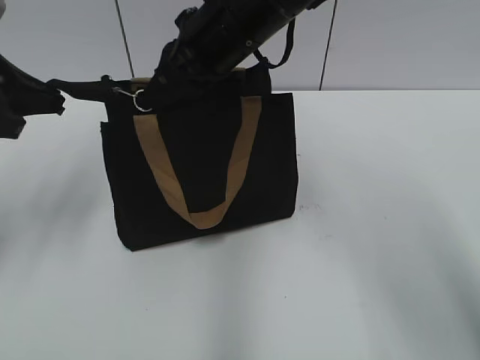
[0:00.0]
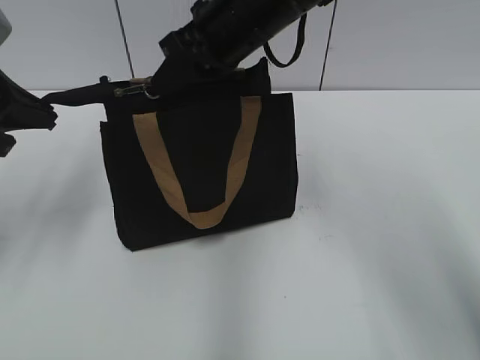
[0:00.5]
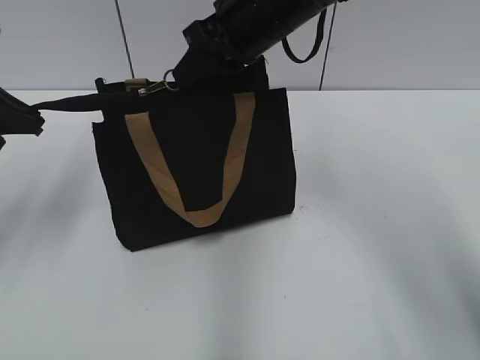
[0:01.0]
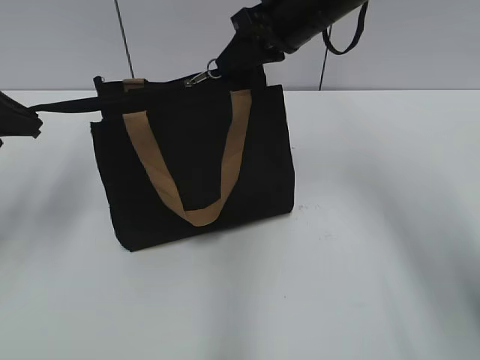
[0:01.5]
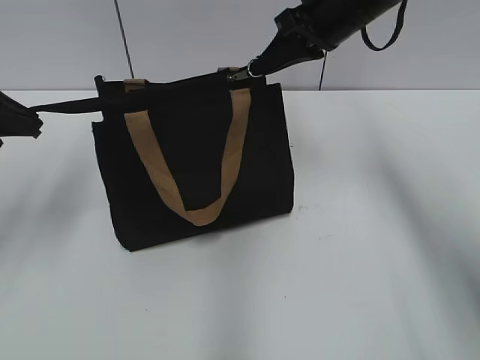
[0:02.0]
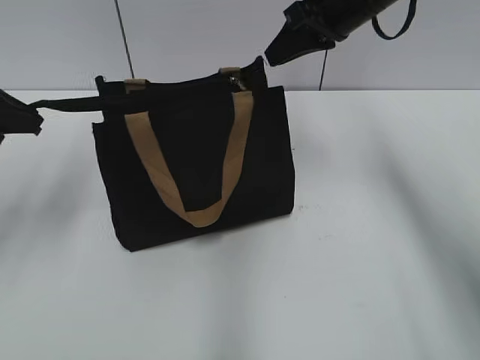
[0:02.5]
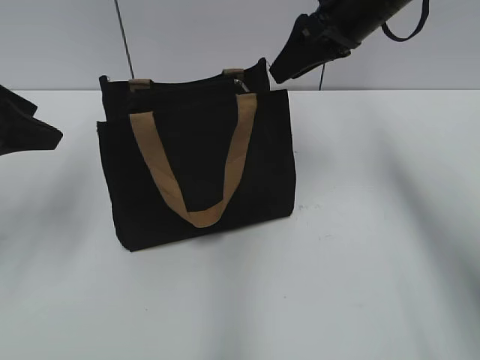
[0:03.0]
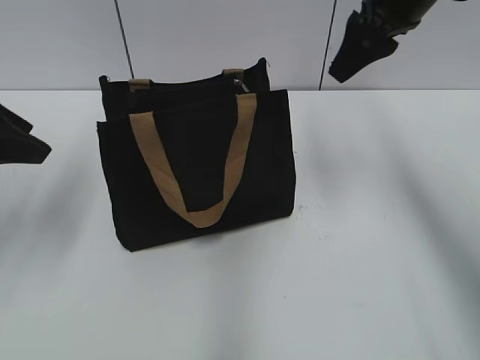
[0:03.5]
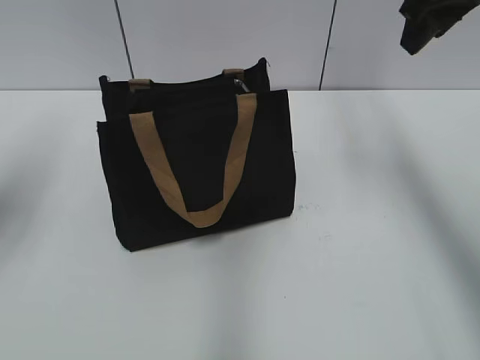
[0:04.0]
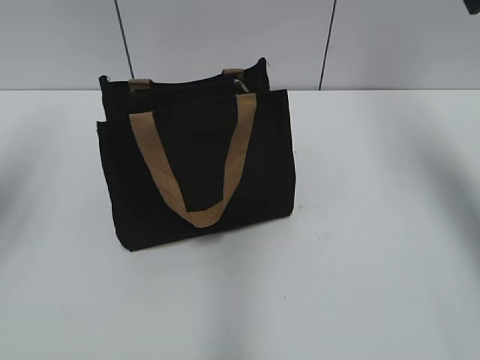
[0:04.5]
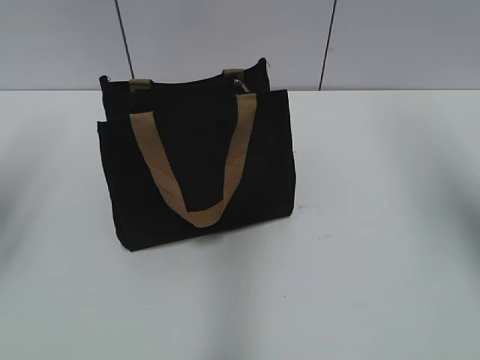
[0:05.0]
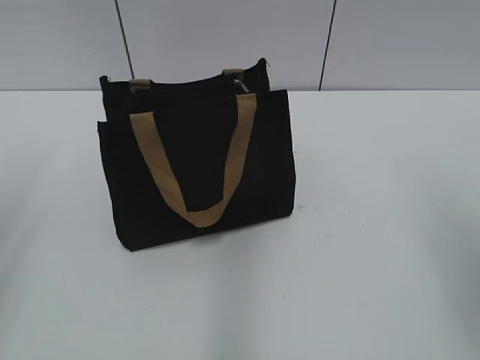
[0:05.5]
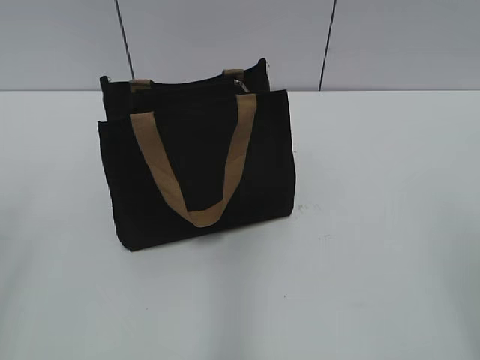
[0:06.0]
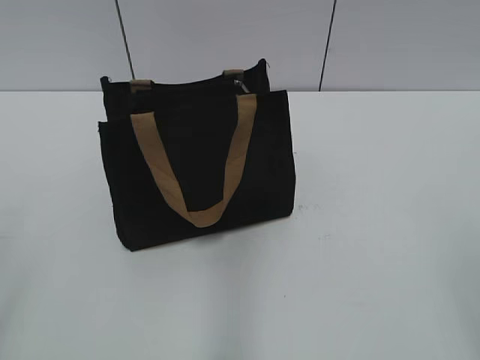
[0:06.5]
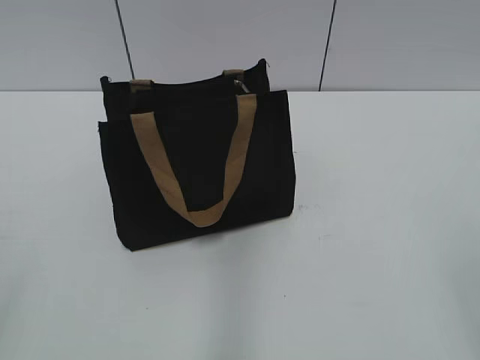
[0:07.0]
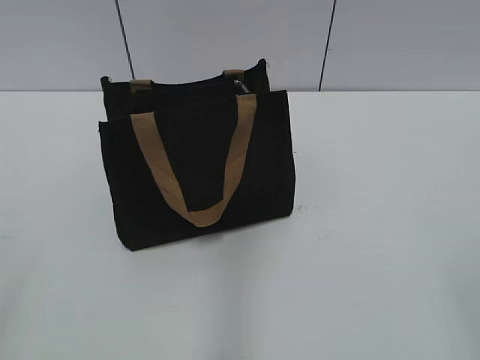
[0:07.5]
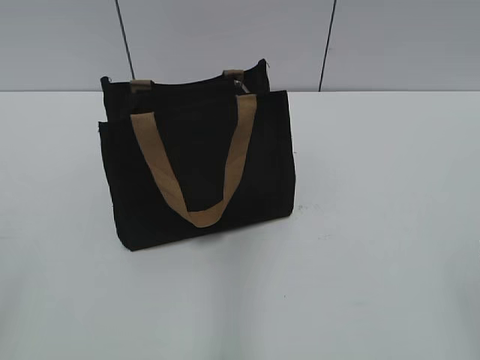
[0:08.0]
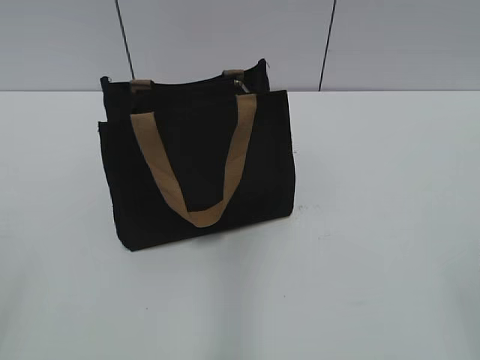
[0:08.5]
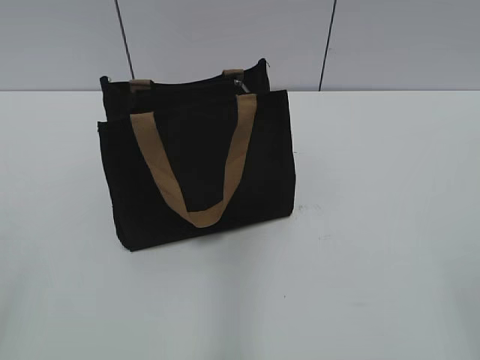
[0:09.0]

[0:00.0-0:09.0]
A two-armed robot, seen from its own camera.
Step, 0:00.0 to 0:02.5: Zip up the bag with your right hand.
0:00.0 to 0:02.0: The right gripper heads to the right and forward, covering approximately 15 cm.
0:02.0 to 0:04.5: The left gripper shifts by about 5 cm, and opens its fingers. The right gripper heads to the right, upward and backward, covering about 20 cm, and opens its fingers.
0:04.5 to 0:07.0: Both grippers move backward, roughly 30 cm.

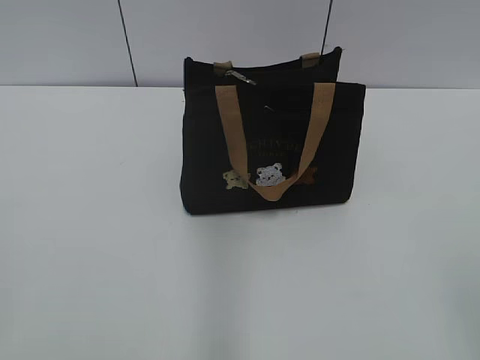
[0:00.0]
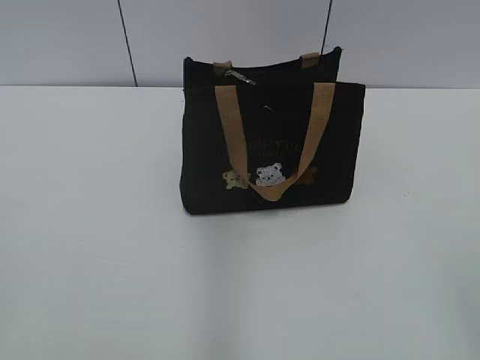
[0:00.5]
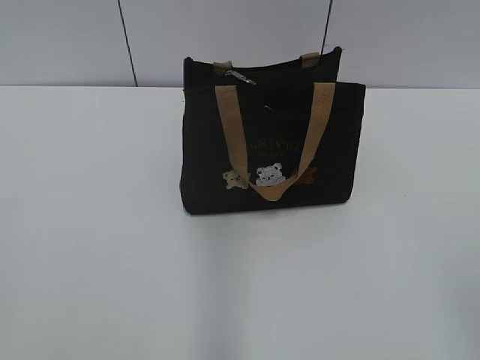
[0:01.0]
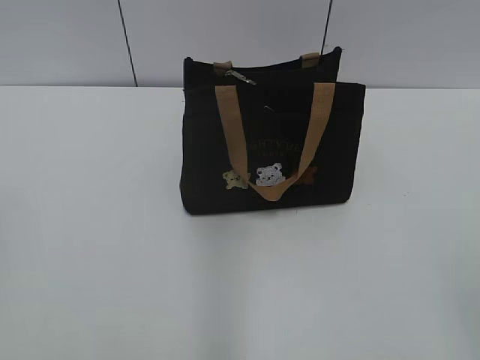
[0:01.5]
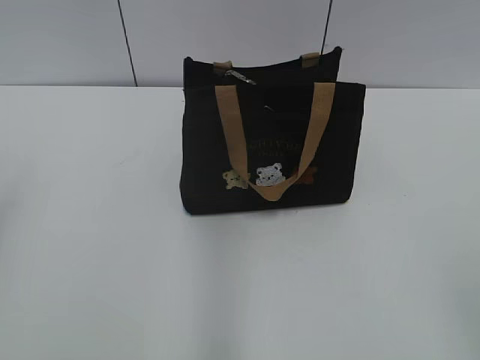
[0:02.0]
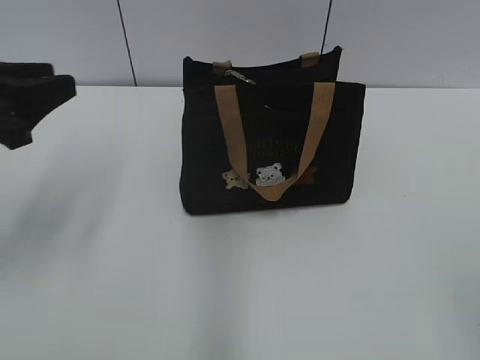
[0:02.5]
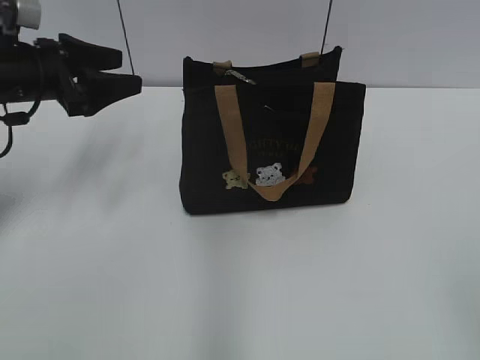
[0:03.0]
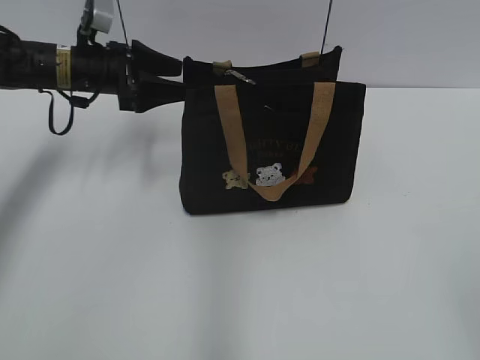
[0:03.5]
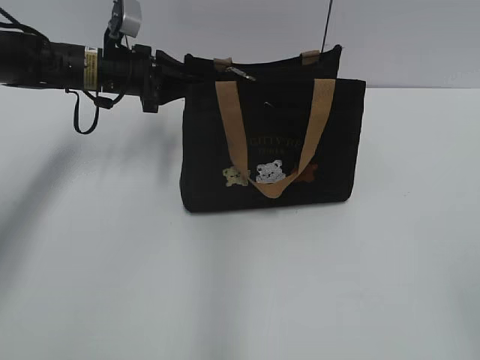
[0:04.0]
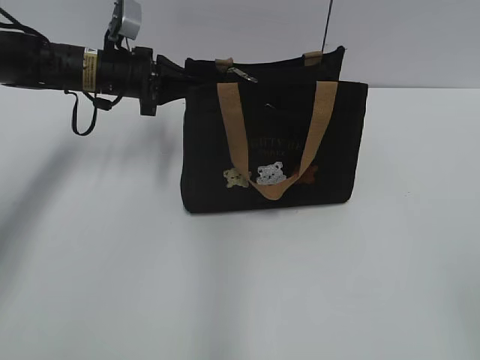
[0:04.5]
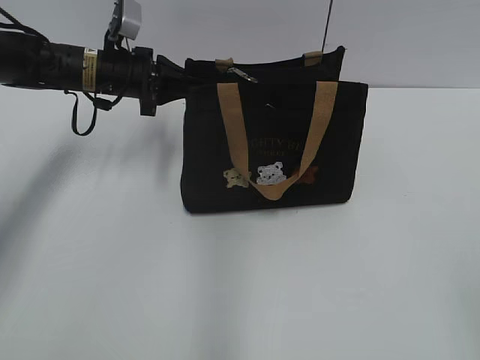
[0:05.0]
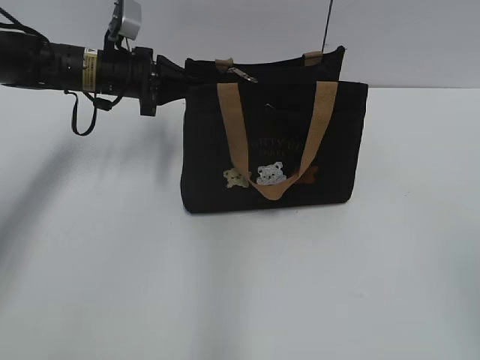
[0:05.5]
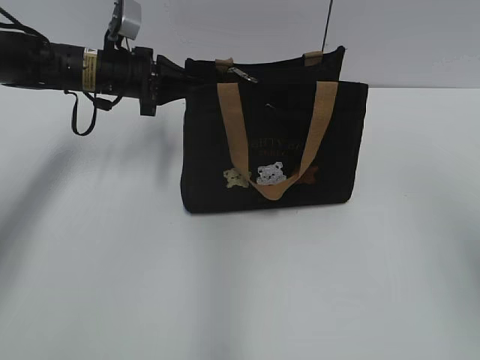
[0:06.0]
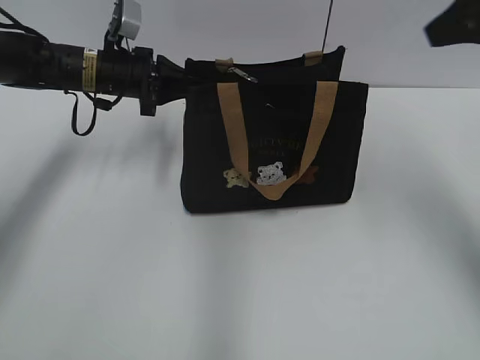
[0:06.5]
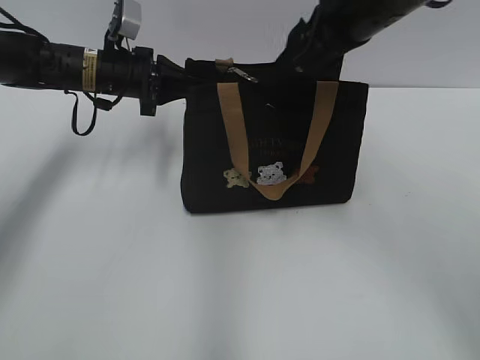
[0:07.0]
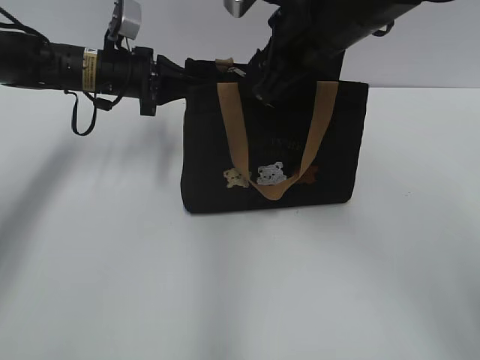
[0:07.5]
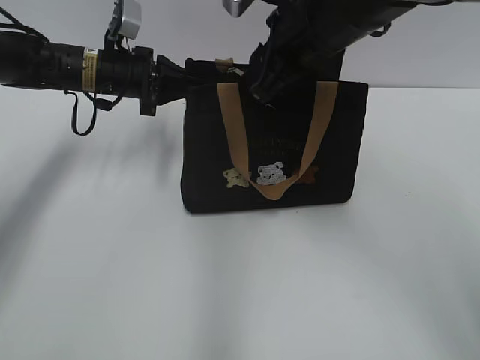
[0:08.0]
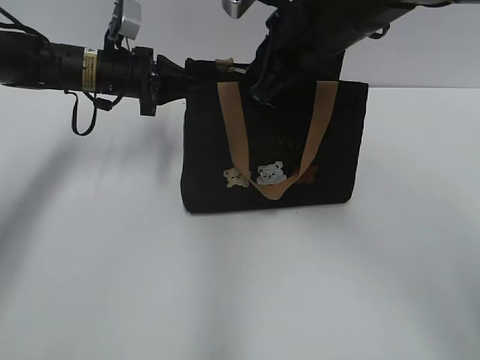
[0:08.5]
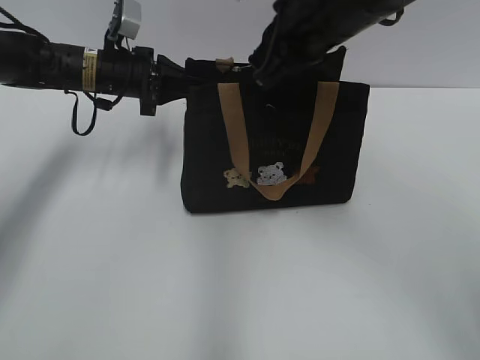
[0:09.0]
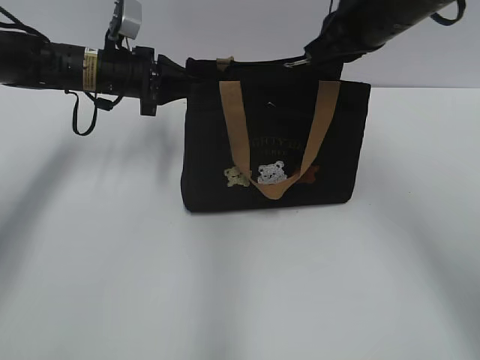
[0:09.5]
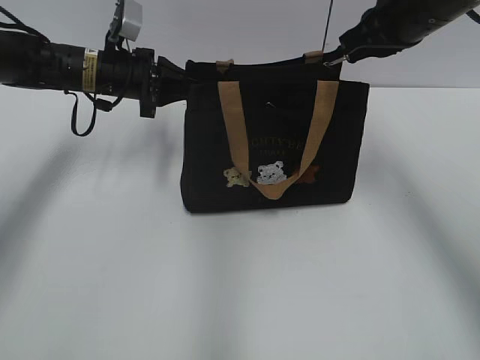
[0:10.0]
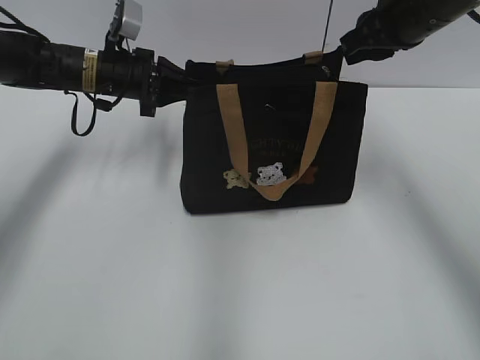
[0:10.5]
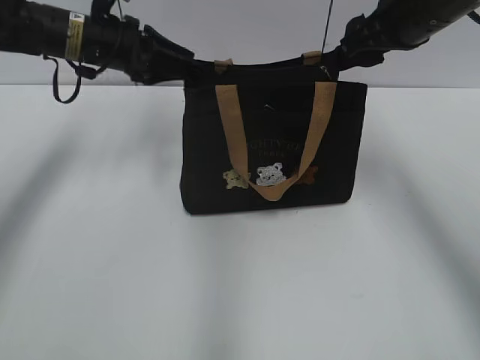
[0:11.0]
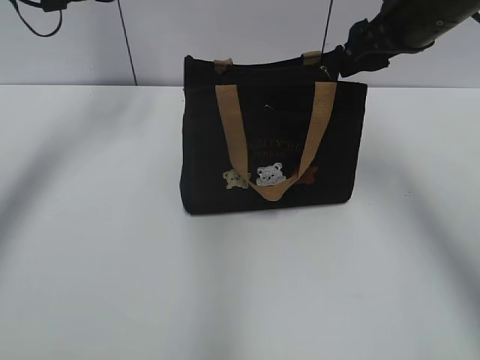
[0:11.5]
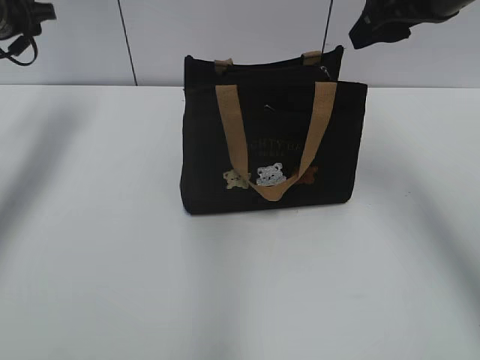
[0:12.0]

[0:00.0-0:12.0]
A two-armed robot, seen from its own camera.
Step, 0:00.0 to 0:10.5: Pull open the zipper with your right hand.
0:02.0 to 0:04.0: The left gripper moves forward and to the right, roughly 40 cm, and opens, then closes once more.
0:04.0 to 0:06.0: The right gripper heads forward and upward, covering some 15 cm; the left gripper closes its fingers.
0:06.0 to 0:08.0: The right gripper travels forward and to the left by roughly 30 cm.
0:08.0 to 0:10.0: The right gripper shifts some 10 cm to the right, and closes its fingers.
0:10.0 to 0:12.0: The left gripper travels to the left and upward by roughly 15 cm, and opens its fingers. The right gripper opens up.

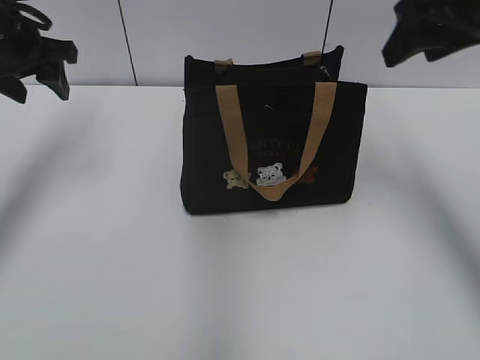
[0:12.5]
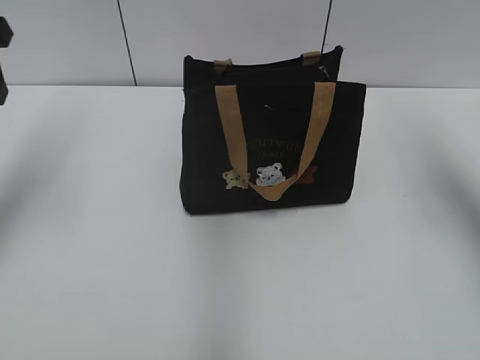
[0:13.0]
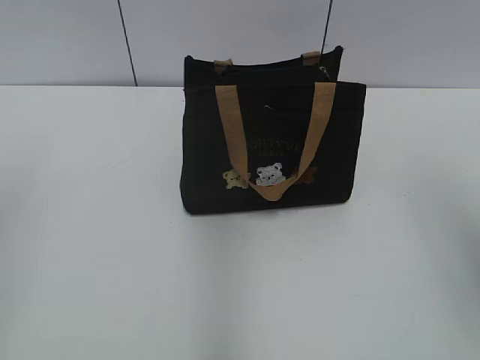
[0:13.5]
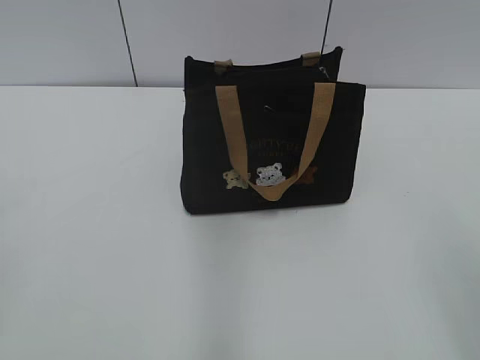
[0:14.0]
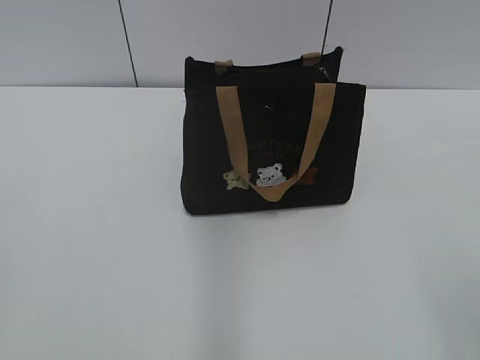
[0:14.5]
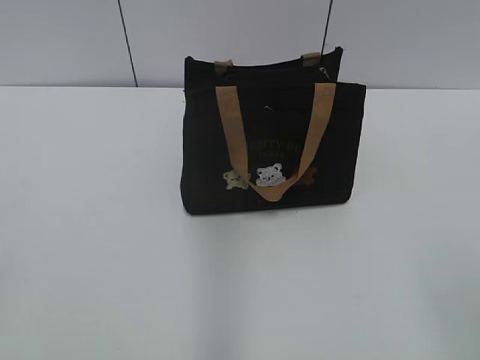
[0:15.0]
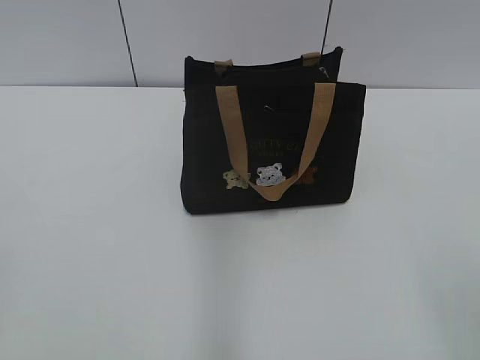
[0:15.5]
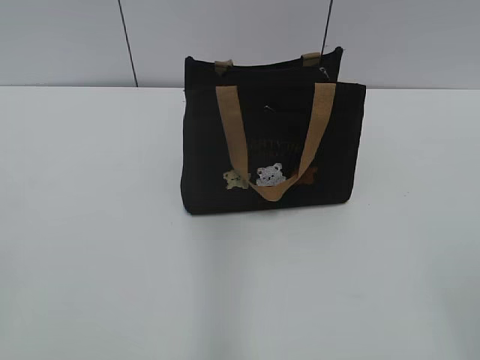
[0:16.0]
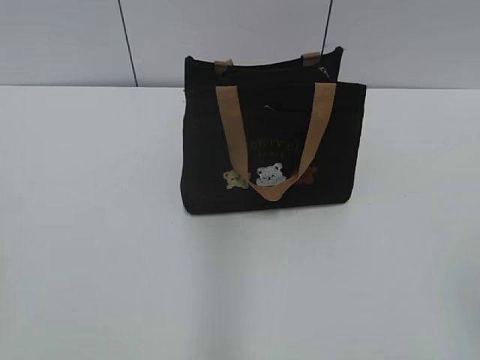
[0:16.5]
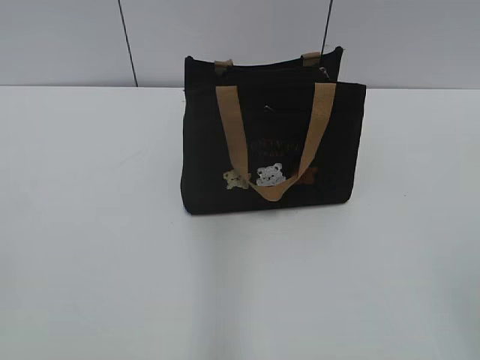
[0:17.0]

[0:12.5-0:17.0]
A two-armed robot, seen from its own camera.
0:12.5 to 0:14.5: Both grippers move backward, about 40 cm.
